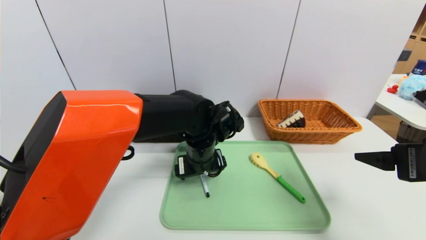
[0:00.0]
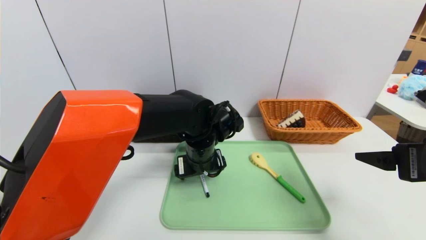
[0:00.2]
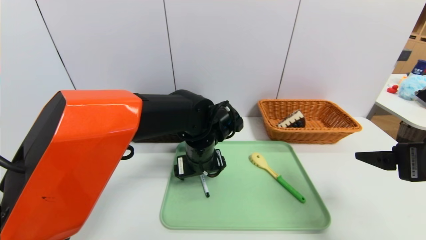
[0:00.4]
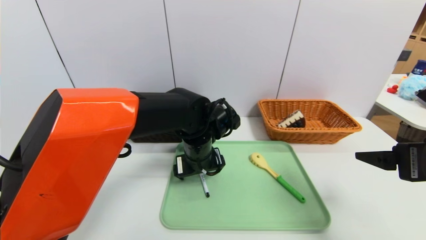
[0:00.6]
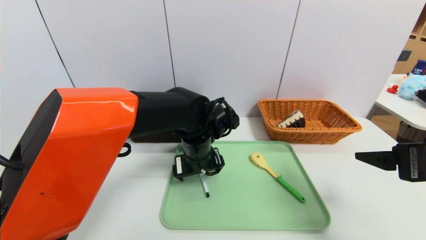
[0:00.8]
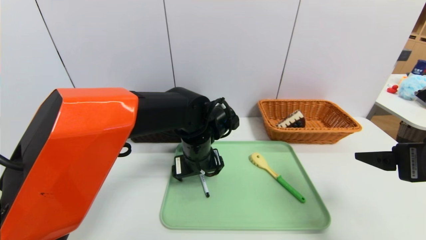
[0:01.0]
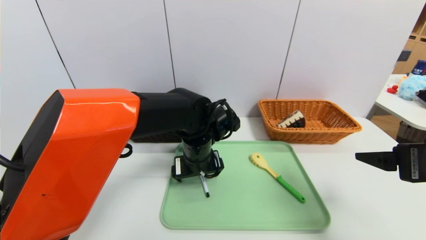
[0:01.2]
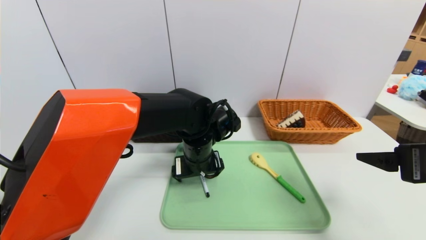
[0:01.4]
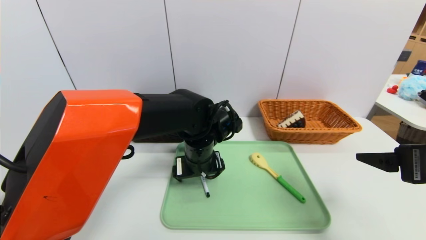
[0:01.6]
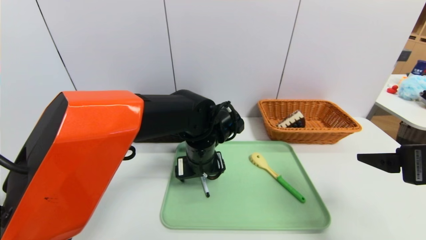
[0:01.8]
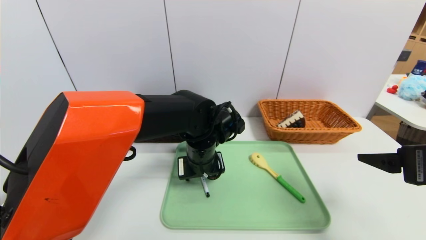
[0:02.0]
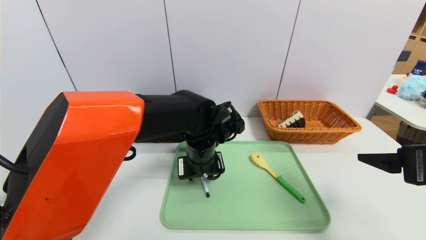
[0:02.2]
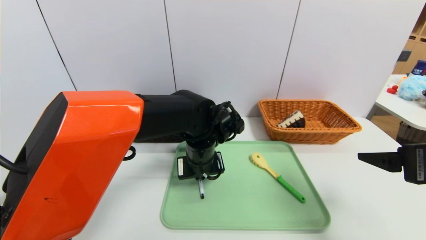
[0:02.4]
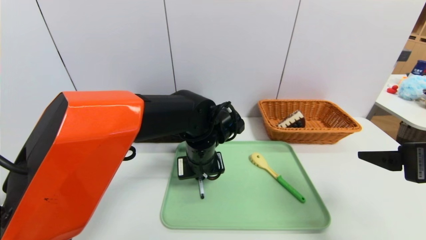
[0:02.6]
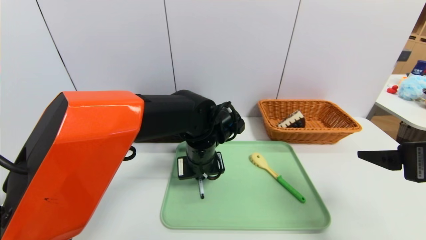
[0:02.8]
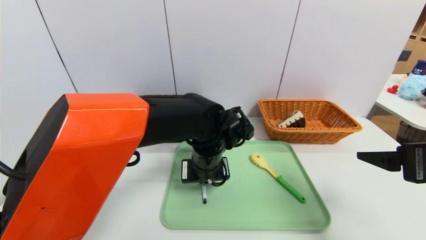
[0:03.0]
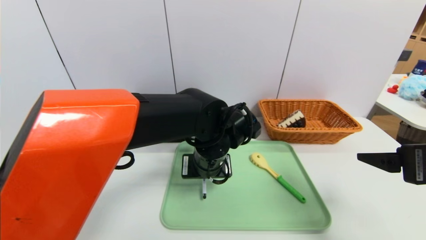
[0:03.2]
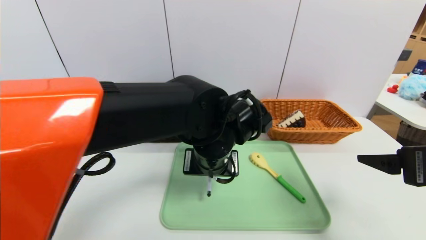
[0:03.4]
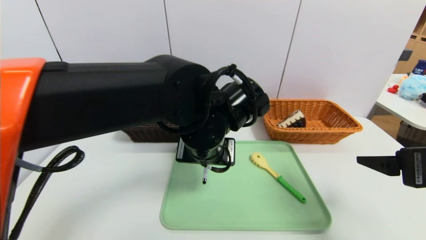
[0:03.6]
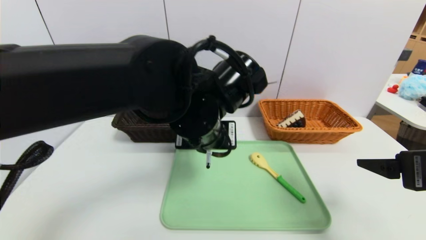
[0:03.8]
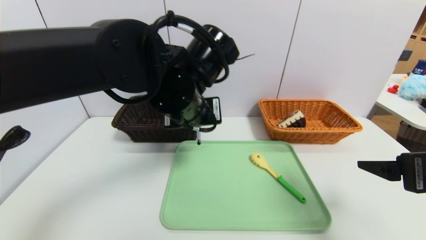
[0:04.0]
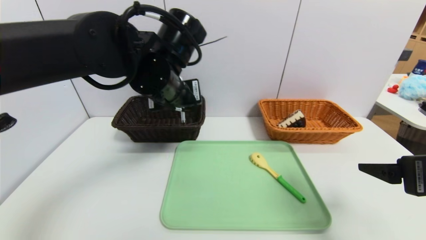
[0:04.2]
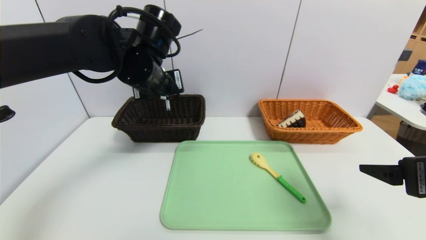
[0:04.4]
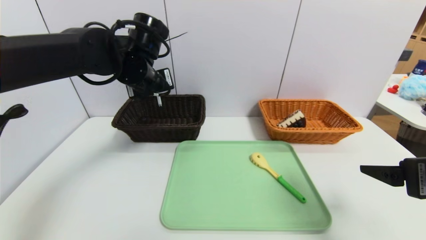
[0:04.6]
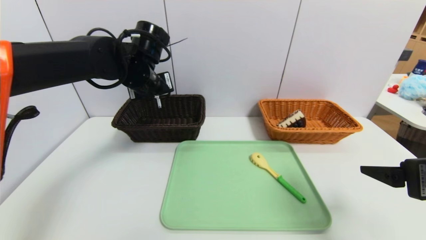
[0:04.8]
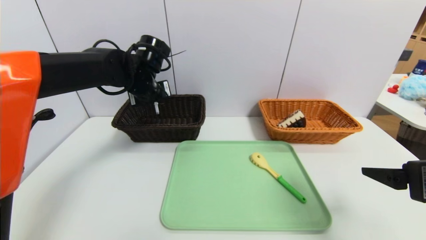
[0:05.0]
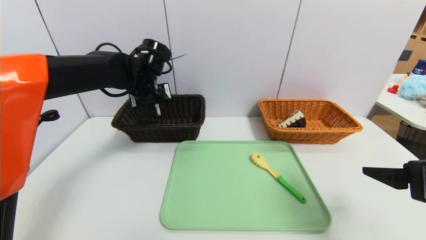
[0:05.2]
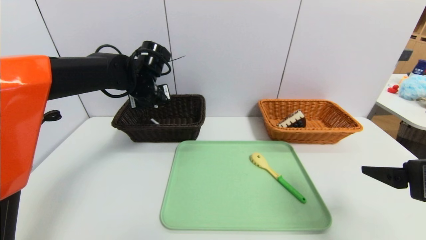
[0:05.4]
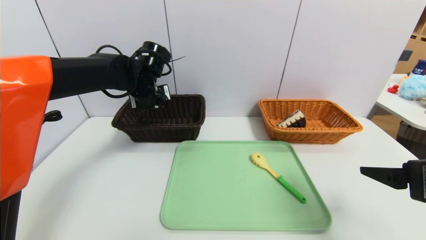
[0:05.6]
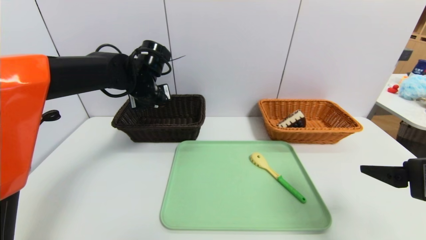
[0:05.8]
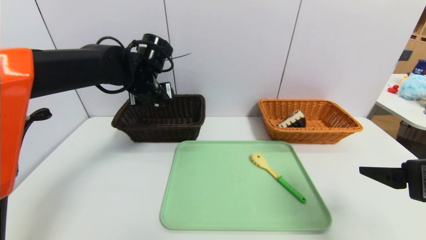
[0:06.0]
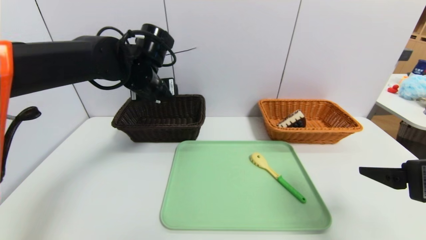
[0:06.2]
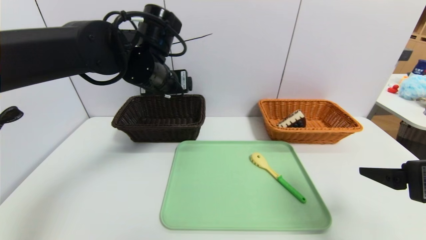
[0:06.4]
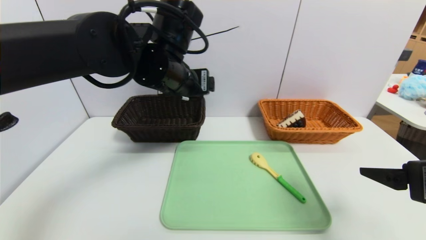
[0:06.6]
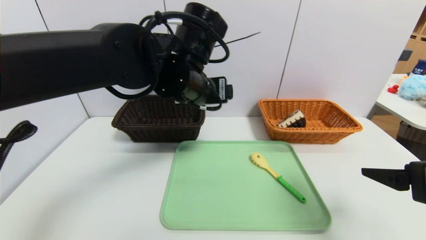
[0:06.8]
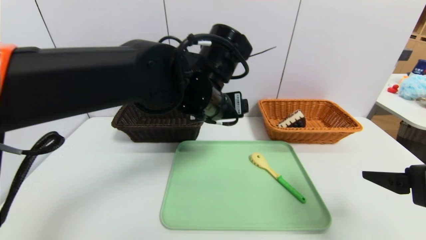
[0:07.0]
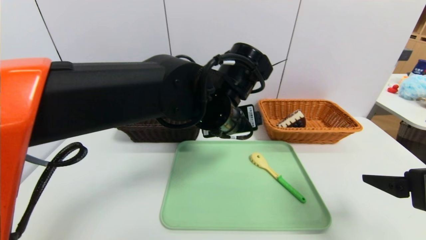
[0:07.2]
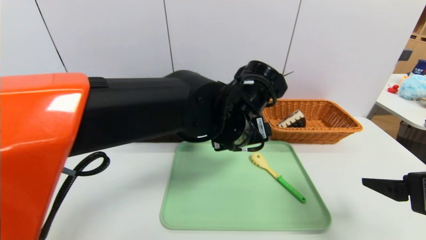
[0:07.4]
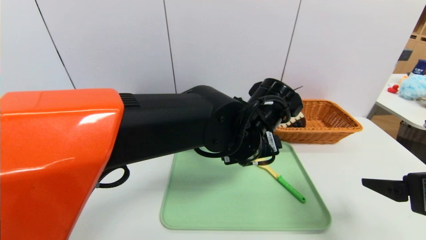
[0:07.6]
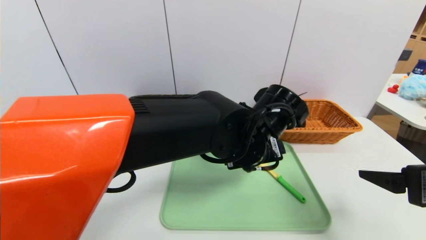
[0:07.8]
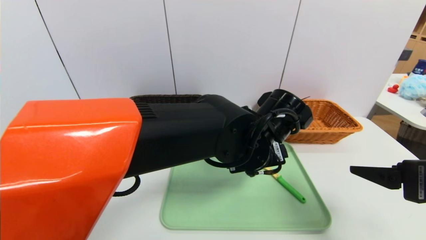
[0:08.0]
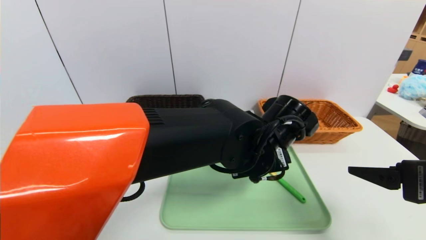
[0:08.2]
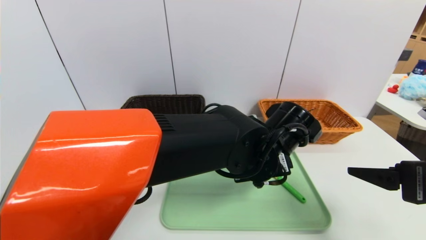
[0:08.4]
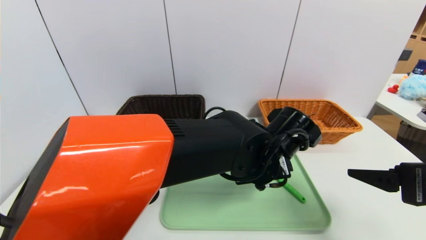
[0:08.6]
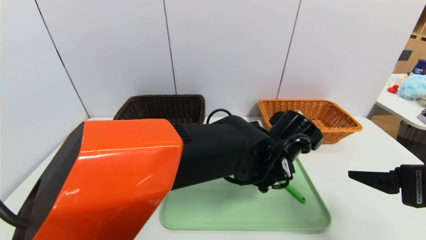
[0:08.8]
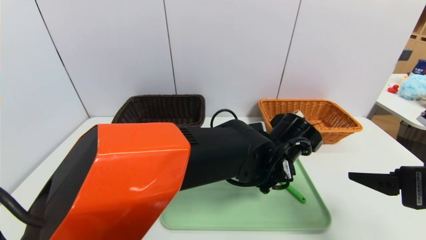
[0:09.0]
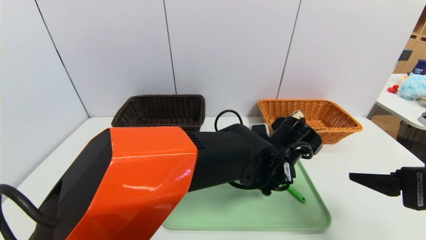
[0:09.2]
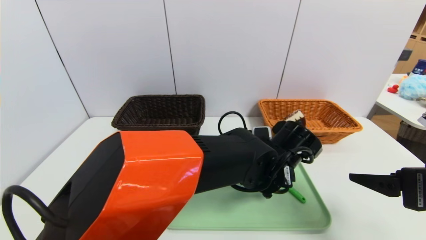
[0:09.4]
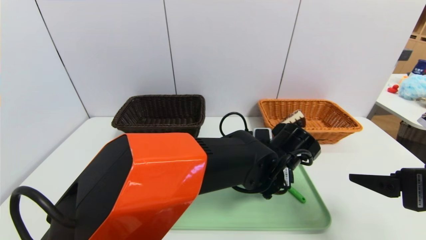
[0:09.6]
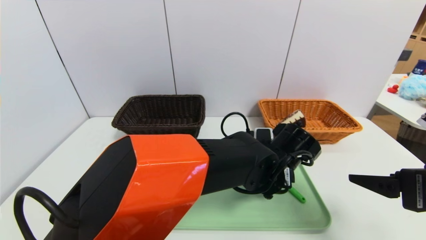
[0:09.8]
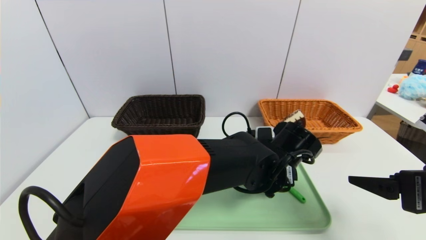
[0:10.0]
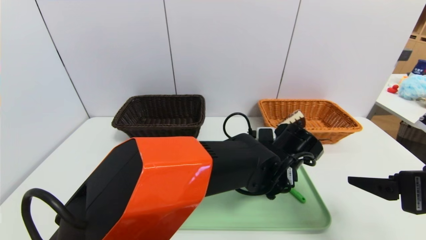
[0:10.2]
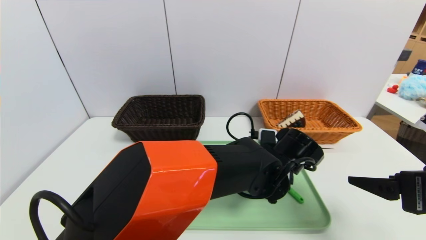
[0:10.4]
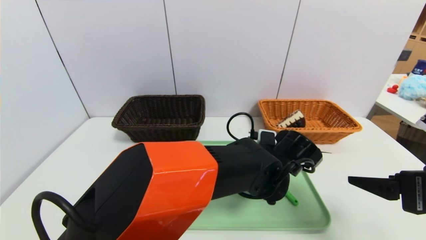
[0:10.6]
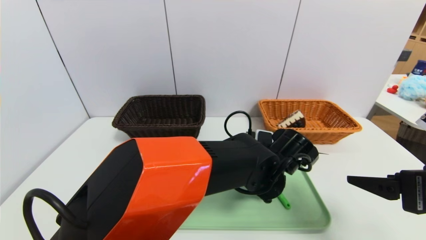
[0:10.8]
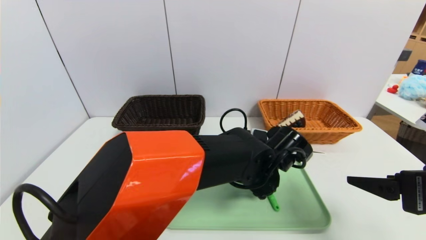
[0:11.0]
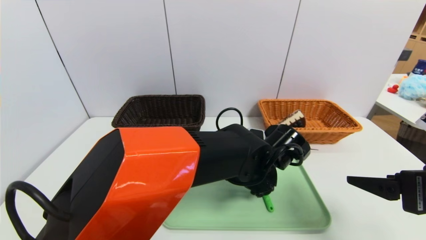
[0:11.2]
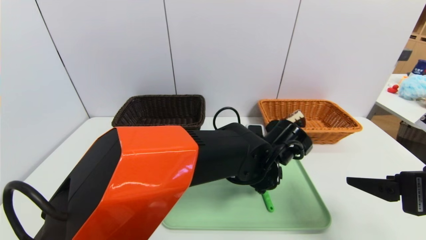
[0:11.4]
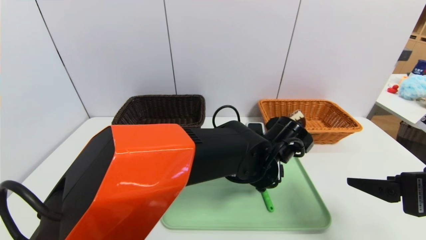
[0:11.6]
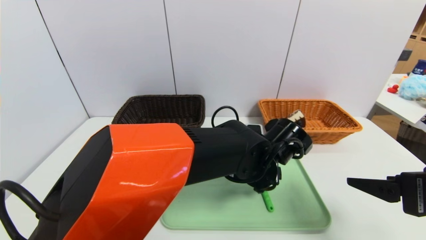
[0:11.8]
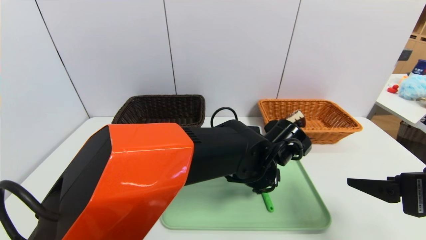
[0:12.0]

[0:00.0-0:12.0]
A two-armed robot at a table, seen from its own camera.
Task of the whole recording: place the food in the right basket with the right gripper, and place the non food items in the left basket with the left gripper.
Step, 0:00.0 to 0:05.8: Grasp the pen container and put it in the left basket.
0:00.0 to 0:01.6: Both grippers stay about where they are.
0:01.6 to 0:03.0: The left gripper closes.
0:03.0 to 0:04.4: The left gripper heads upward and to the left, covering some 20 cm.
0:04.4 to 0:06.0: The left gripper shifts some 5 cm forward, and opens up.
0:06.0 to 0:07.6: The left gripper goes about 25 cm to the right and backward.
0:07.6 to 0:09.0: The left gripper shifts some 5 cm downward.

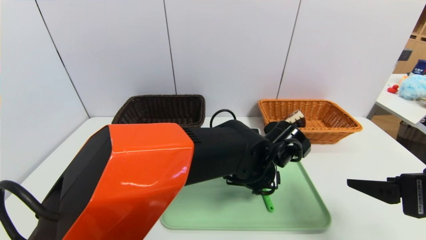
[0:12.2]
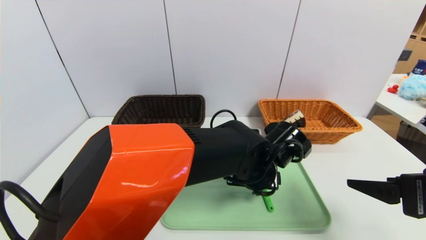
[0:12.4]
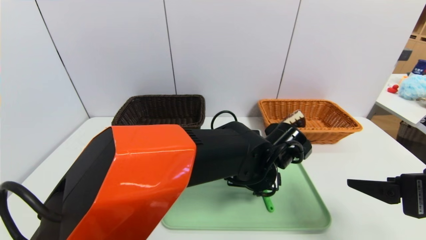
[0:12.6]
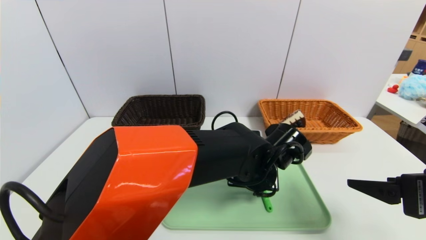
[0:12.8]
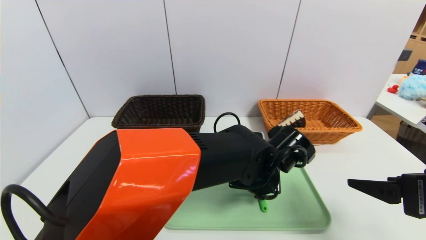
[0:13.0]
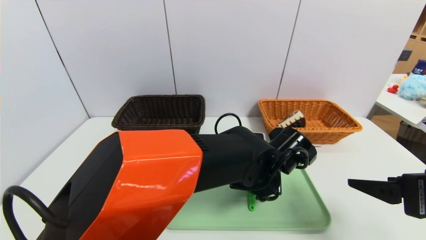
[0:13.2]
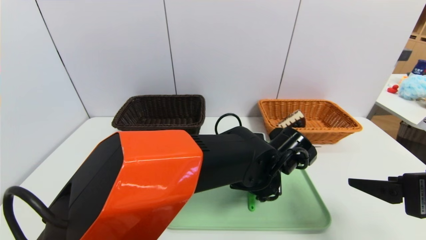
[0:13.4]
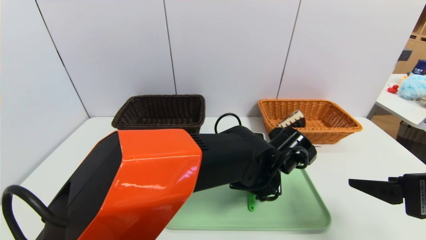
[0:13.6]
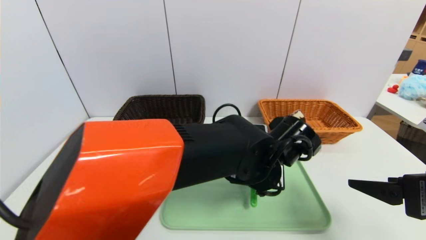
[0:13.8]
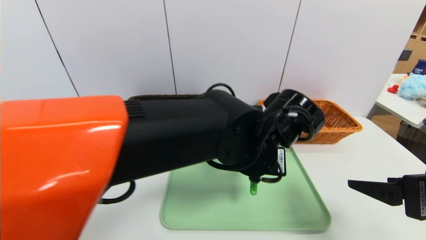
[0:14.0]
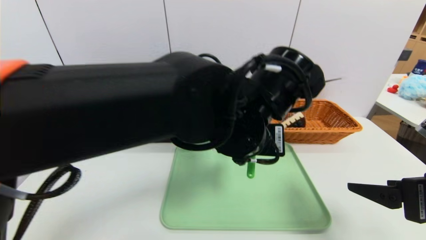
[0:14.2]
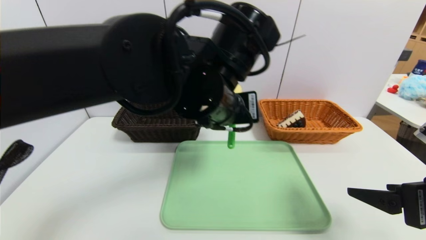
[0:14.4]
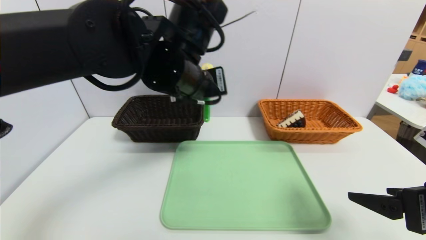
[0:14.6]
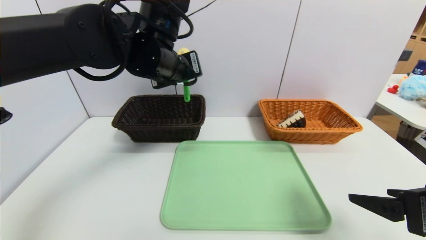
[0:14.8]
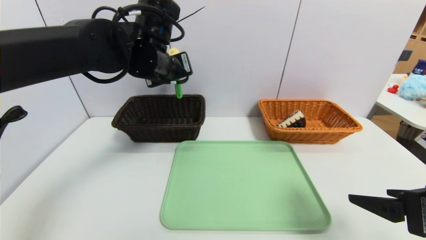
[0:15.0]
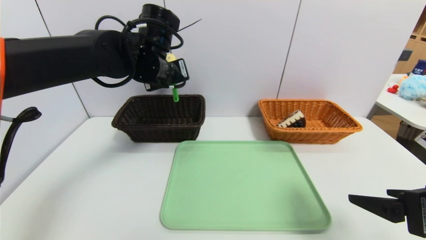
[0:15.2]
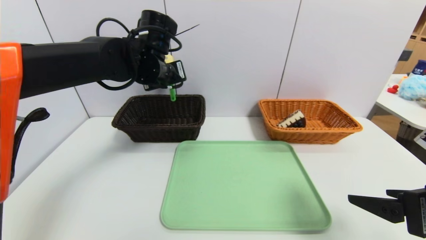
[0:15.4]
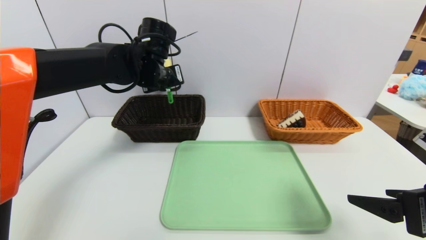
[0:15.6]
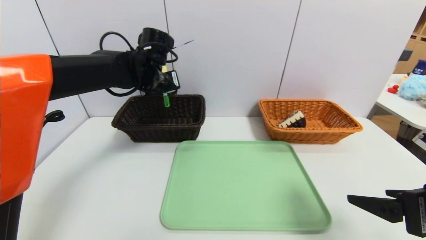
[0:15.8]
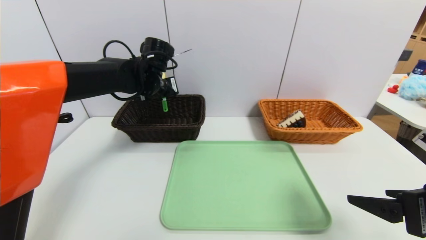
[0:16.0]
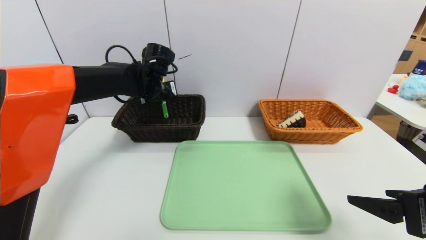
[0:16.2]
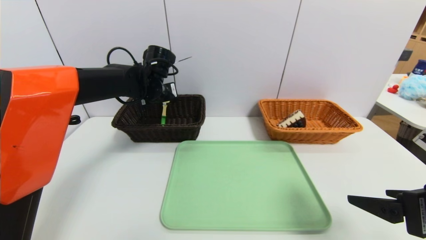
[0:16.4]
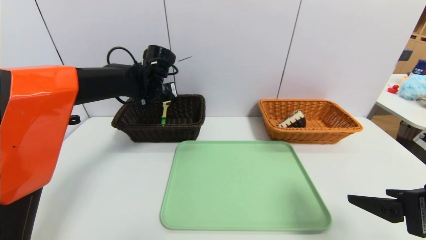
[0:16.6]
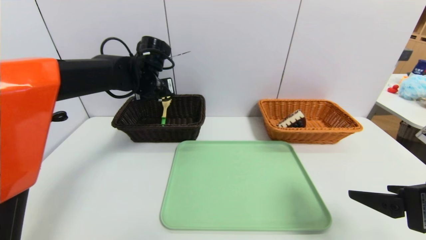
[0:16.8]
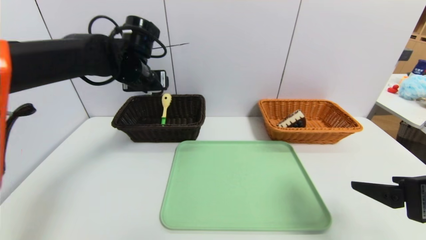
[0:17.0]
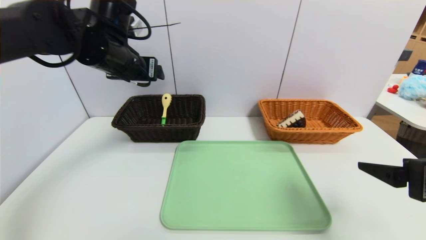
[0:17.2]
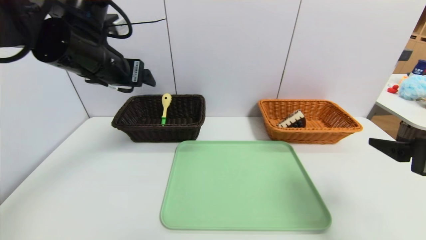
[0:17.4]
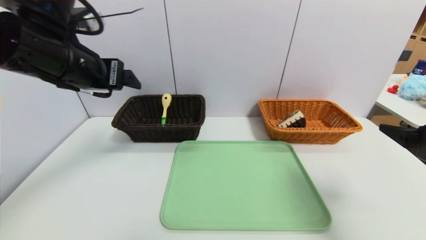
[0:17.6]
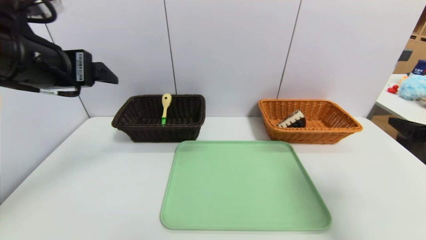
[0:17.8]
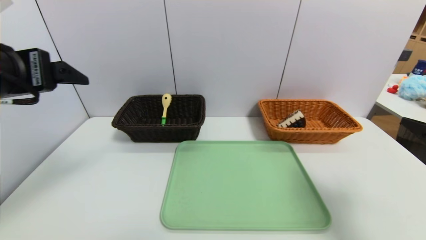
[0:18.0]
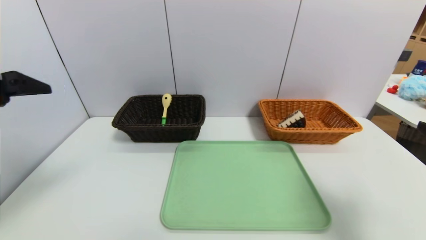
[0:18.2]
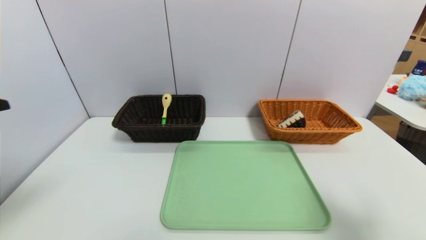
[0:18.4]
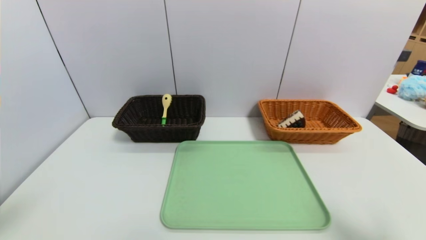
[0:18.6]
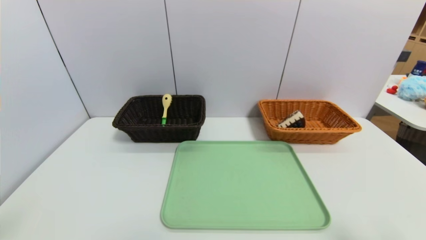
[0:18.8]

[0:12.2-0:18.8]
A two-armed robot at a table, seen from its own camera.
Task of the whole recording: place the food in the right basket with the right gripper, and place the non food items in the left basket with the left gripper.
Step, 0:12.2 to 0:16.8: Grasp the back scratcher and put it in the left basket.
0:12.2 to 0:13.8: The left gripper closes.
0:13.8 to 0:15.4: The left gripper heads to the left, forward and upward, covering roughly 25 cm.
0:15.4 to 0:17.2: The left gripper is displaced to the left by approximately 5 cm, and opens.
0:17.2 to 0:18.8: The right gripper travels backward by roughly 10 cm. The left gripper moves backward, about 35 cm.
